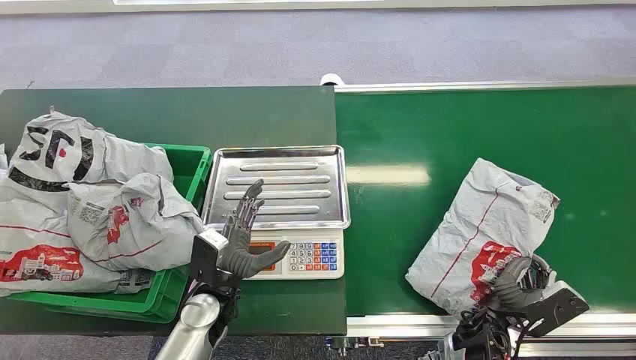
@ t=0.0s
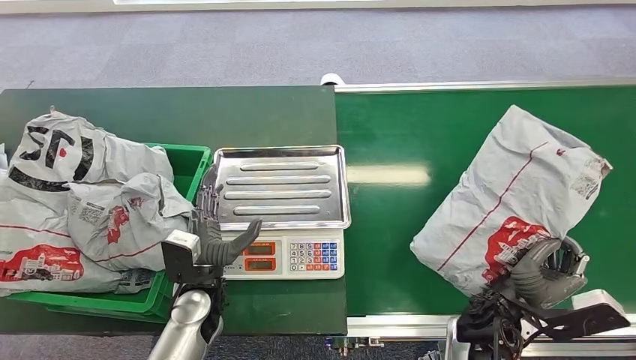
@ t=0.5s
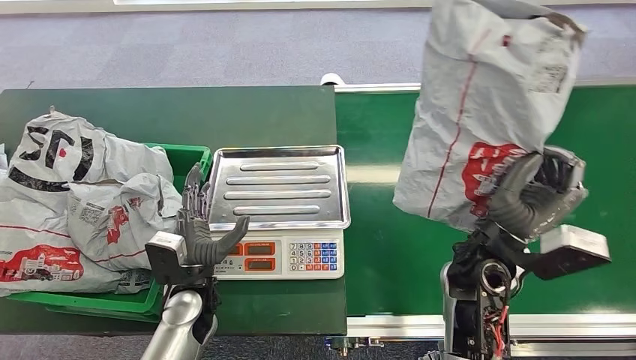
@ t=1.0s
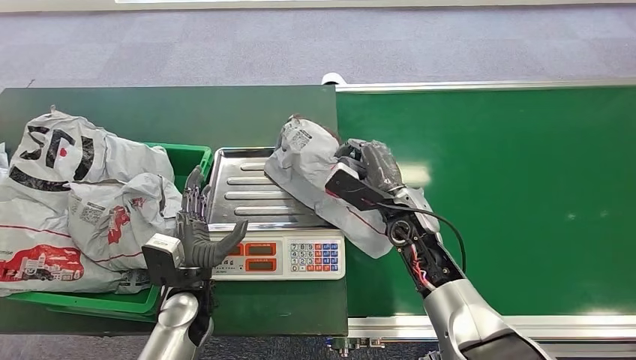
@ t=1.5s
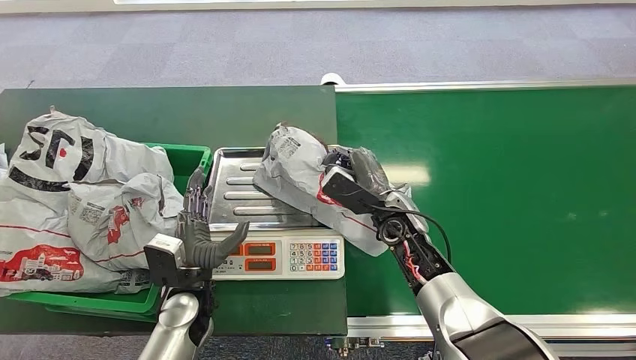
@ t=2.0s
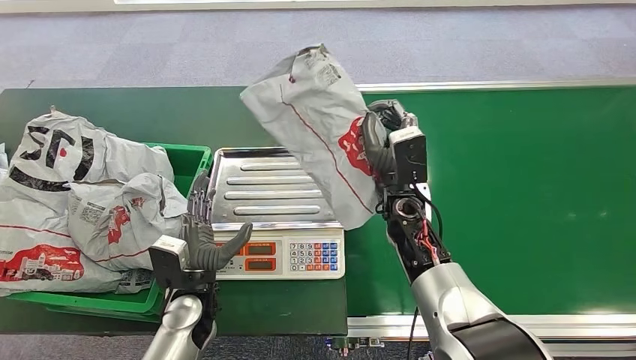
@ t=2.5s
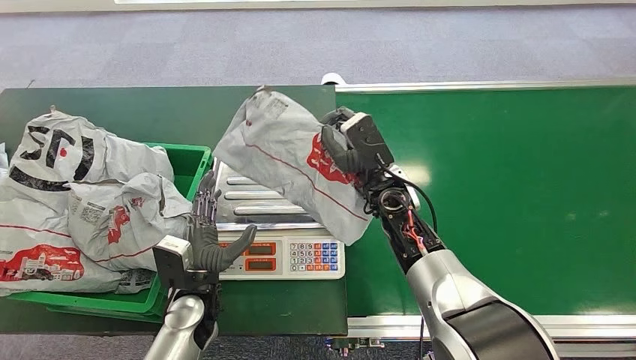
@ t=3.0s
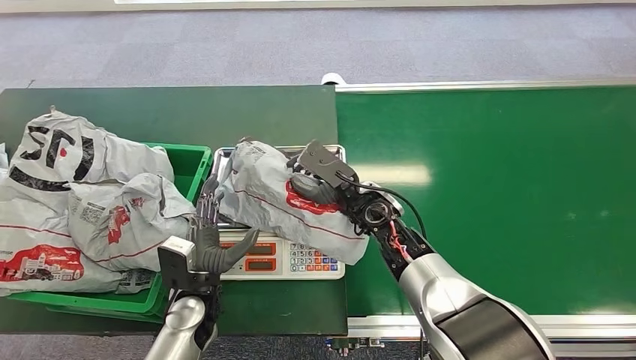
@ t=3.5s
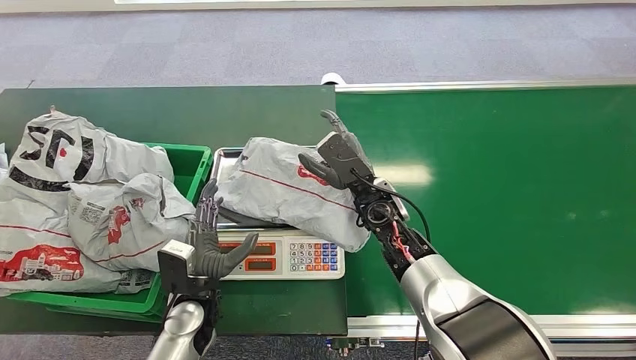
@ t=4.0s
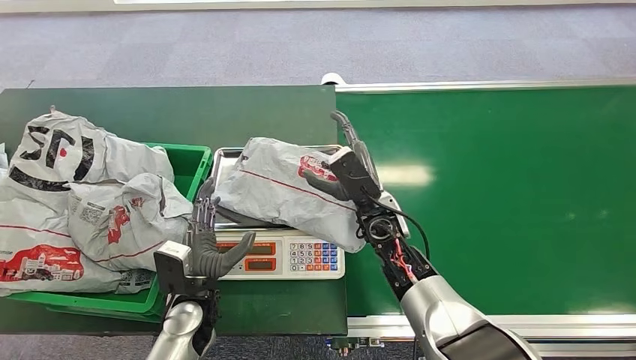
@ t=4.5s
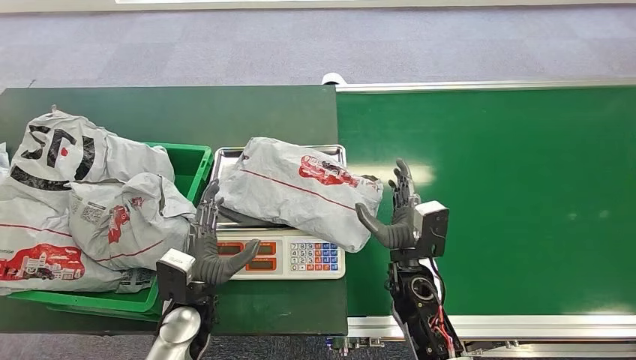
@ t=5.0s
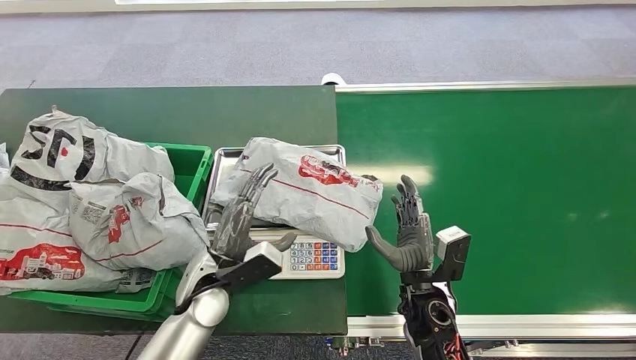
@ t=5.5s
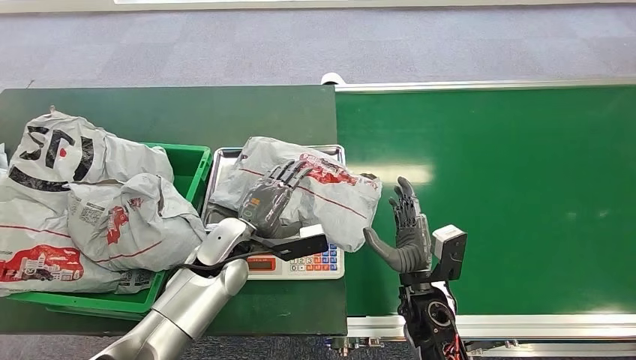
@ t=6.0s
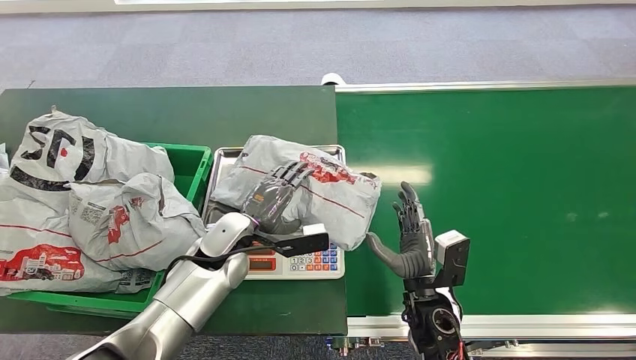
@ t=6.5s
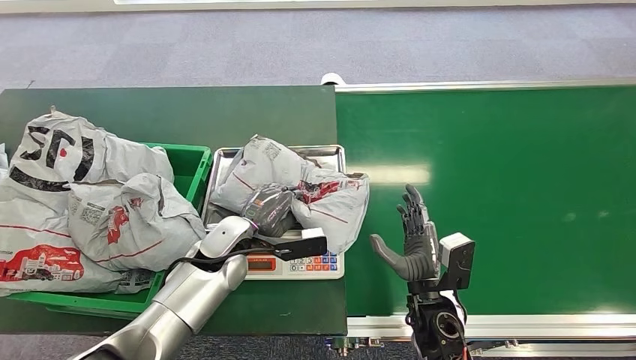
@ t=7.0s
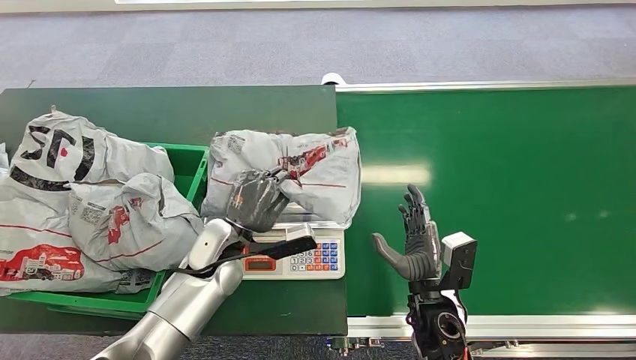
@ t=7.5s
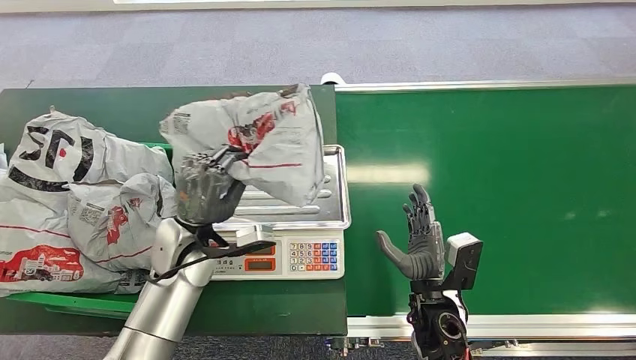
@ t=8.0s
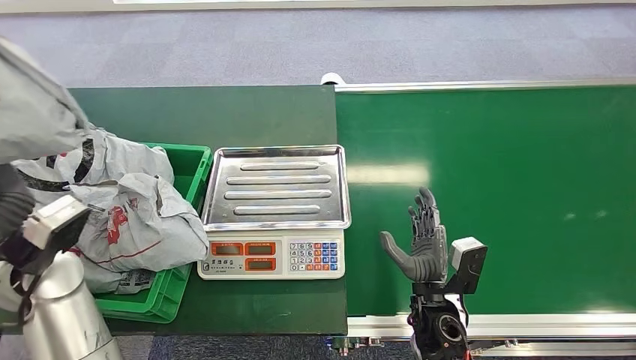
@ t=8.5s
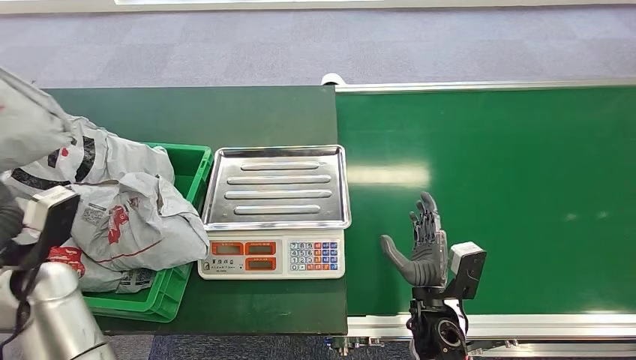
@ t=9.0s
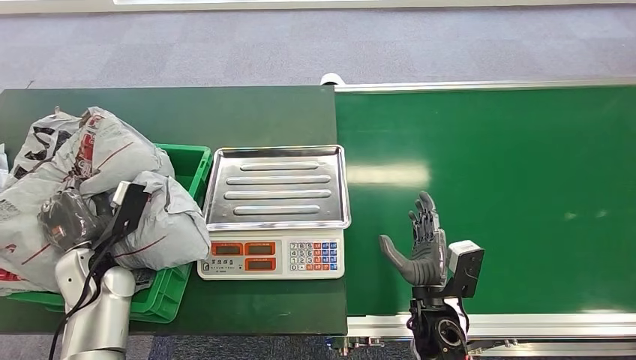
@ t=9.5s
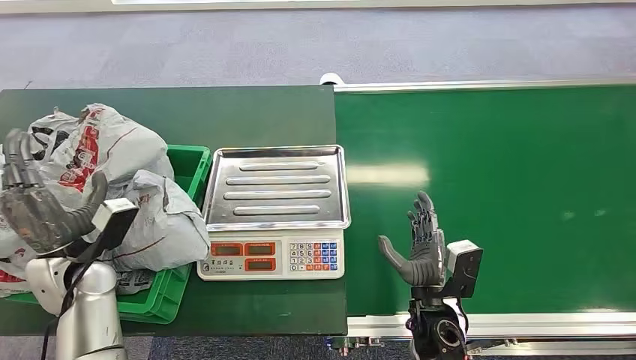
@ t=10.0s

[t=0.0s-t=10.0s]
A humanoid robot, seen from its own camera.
Step, t=0.0s to t=0.5s: Pick up the package from the conveyor belt.
Step, t=3.0s to t=4.0s: Place the package onto the inbound machine.
Step, t=7.5s to t=8.0s: Pick up the package from the inbound machine.
Step, t=9.0s to t=9.5s: Place the package into the parcel locker.
t=4.0s to t=6.0s: The left hand shifts roughly 10 cm forward and upward. Meanwhile the right hand goes roughly 20 cm backward, downward and to the right.
t=6.0s to t=8.0s: The left hand is displaced to the left by roughly 5 cm.

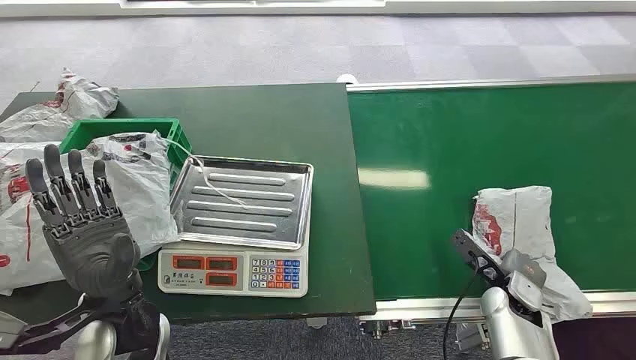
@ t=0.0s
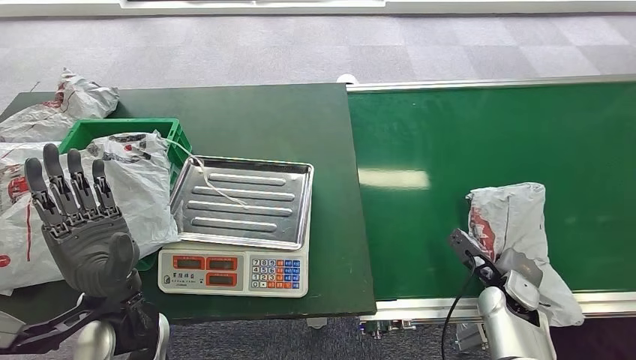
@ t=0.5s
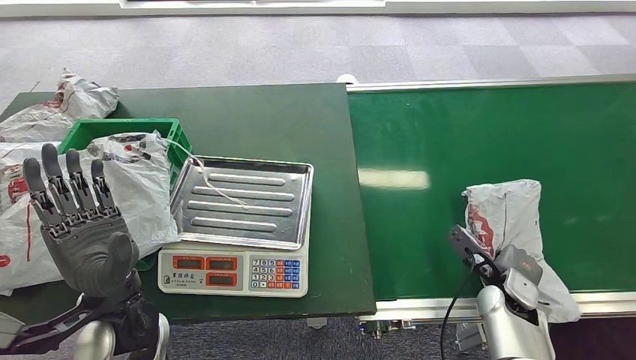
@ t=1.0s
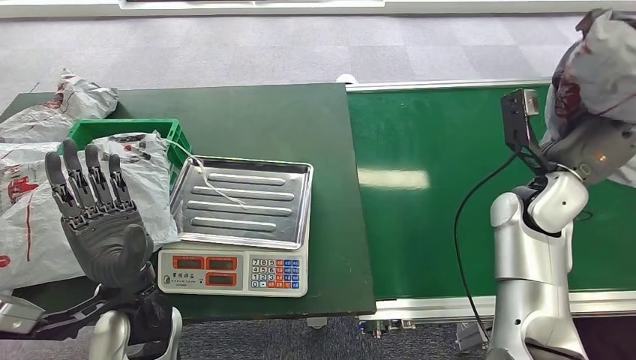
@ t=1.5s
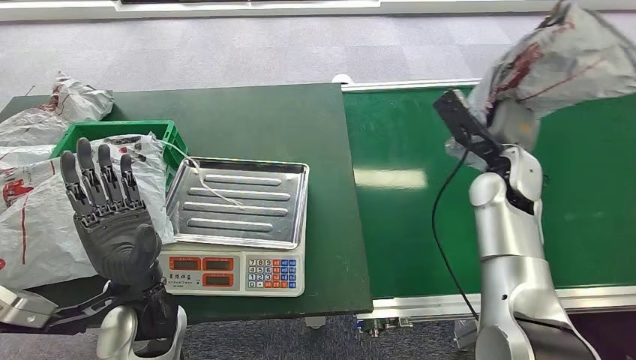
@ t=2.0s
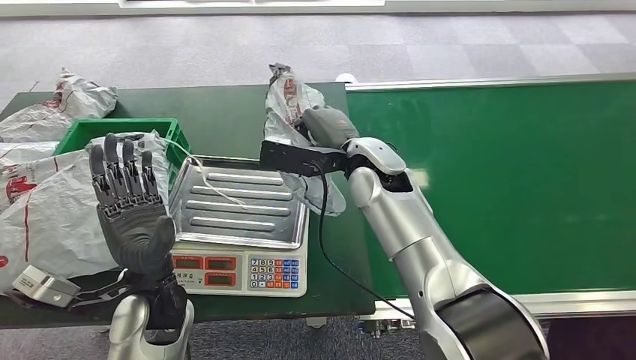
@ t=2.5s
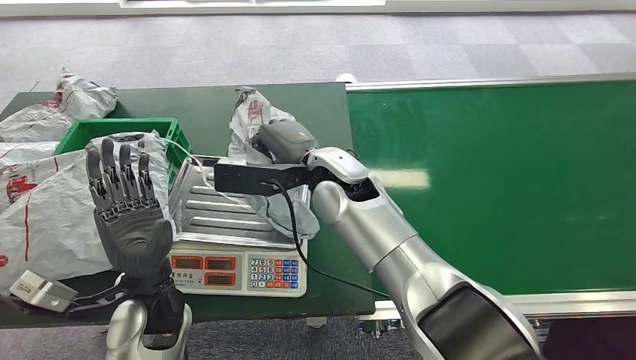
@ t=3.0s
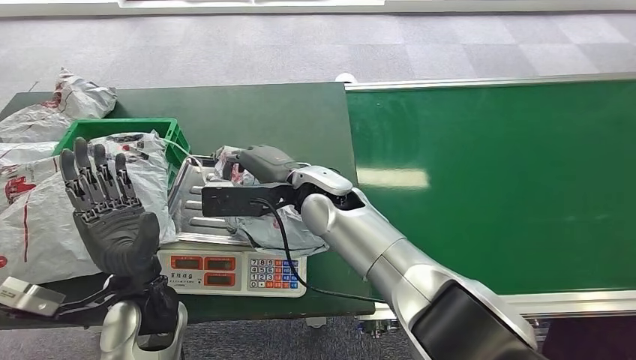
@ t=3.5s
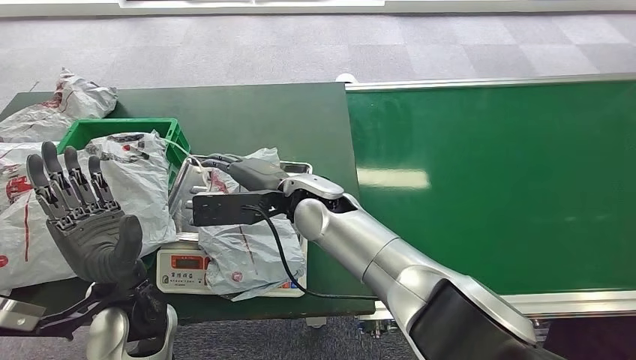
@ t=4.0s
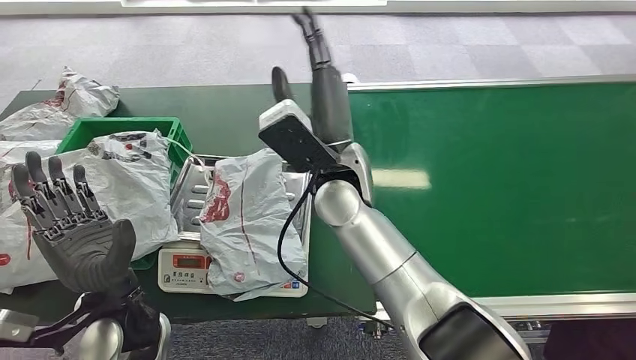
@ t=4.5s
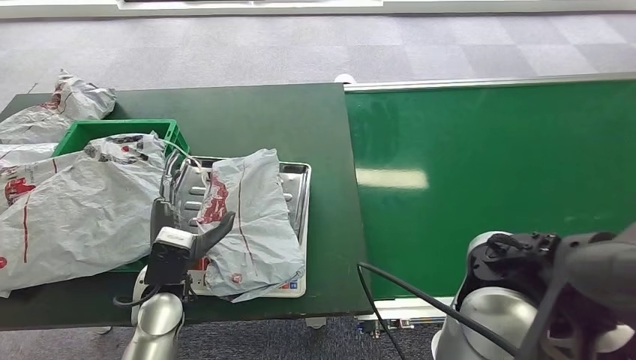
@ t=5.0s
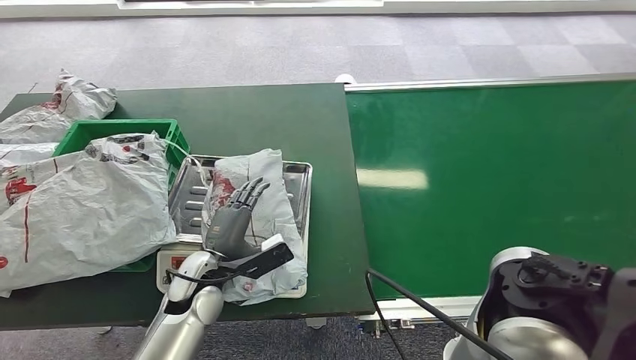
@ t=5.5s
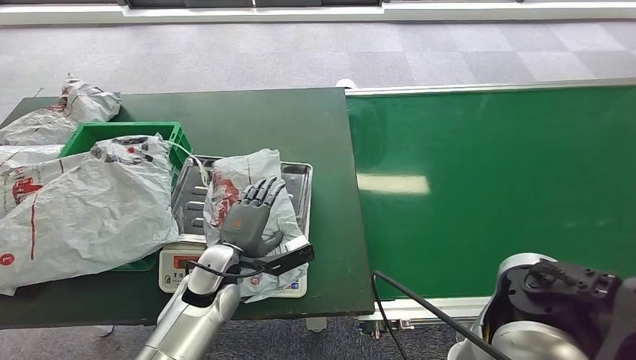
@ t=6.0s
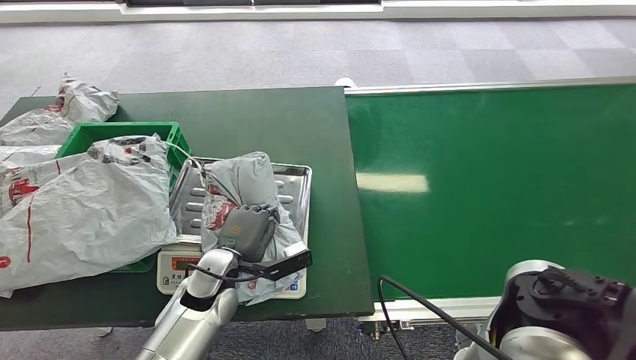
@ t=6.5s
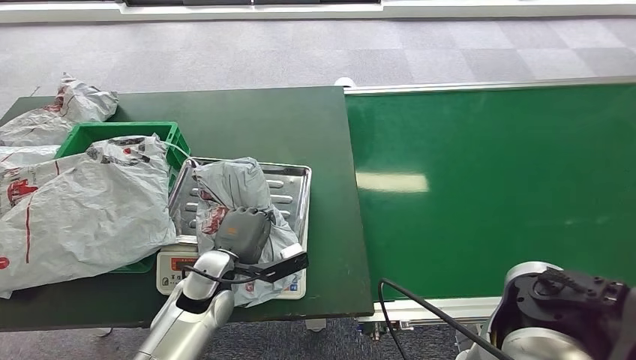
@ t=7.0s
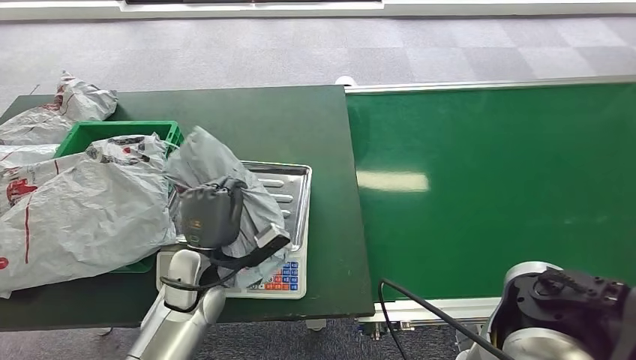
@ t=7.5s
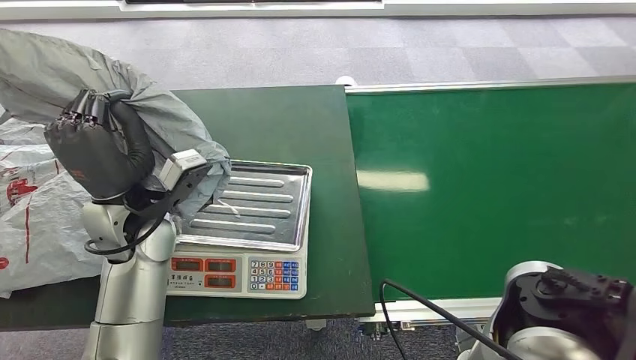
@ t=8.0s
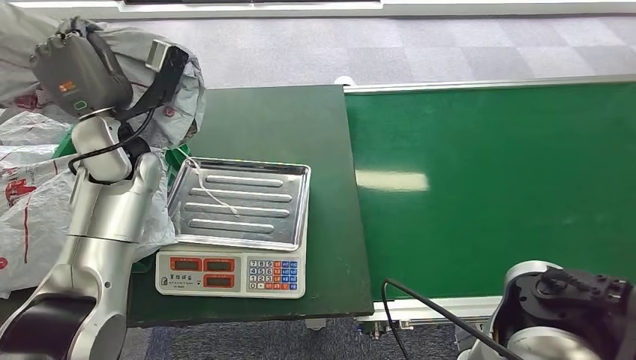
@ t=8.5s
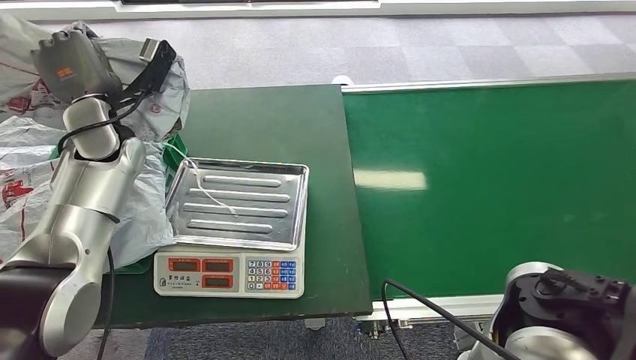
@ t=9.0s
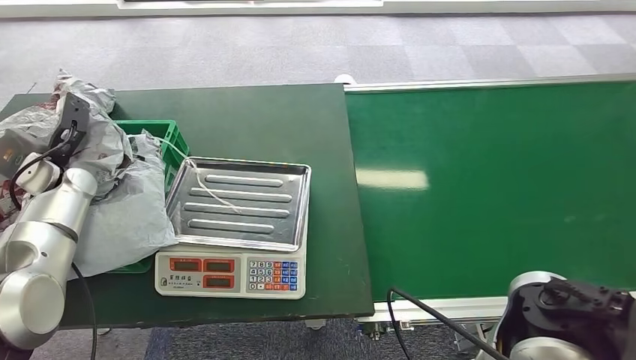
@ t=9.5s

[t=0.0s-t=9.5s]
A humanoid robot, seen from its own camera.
Step, t=0.0s to t=1.5s: Pick up the package from the conveyor belt.
Step, t=2.0s to t=5.0s: Place the package onto the inbound machine.
Step, t=5.5s to t=8.5s: Pick up the package from the inbound machine.
Step, t=9.0s to t=9.5s: Place the package into the parcel locker.
